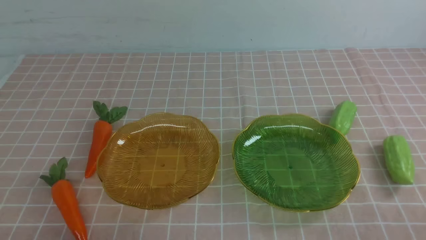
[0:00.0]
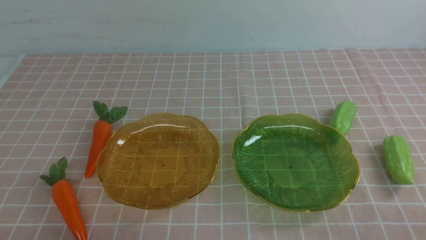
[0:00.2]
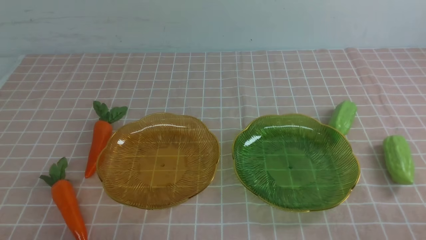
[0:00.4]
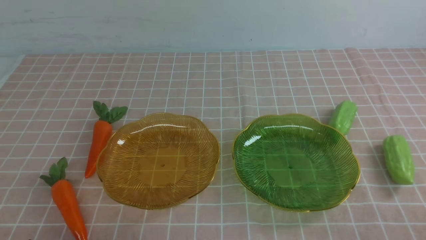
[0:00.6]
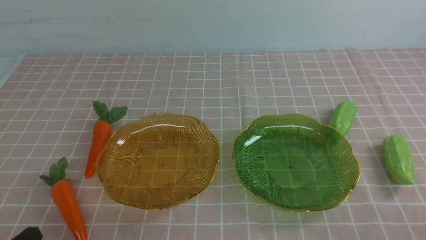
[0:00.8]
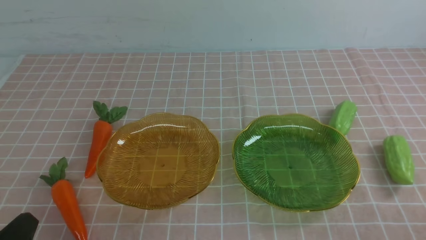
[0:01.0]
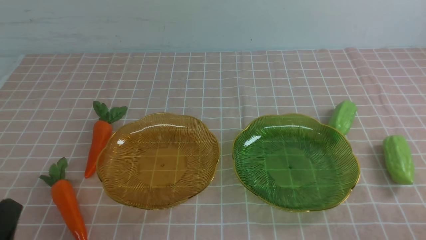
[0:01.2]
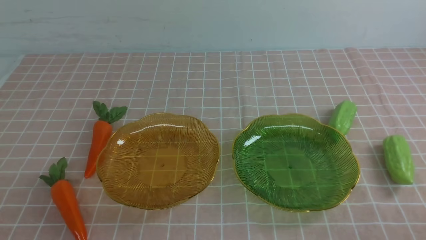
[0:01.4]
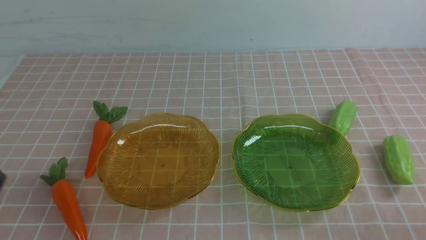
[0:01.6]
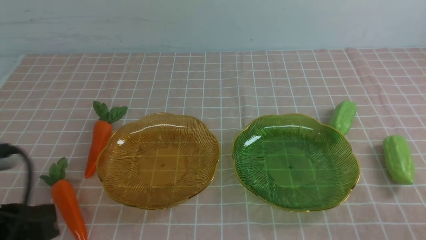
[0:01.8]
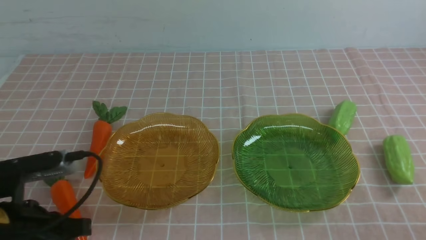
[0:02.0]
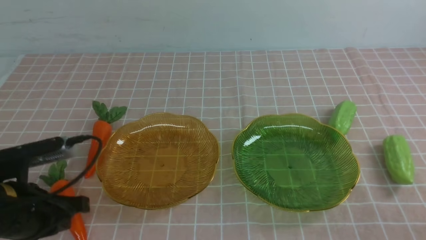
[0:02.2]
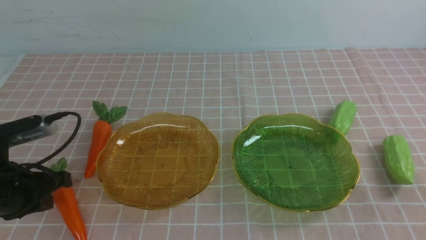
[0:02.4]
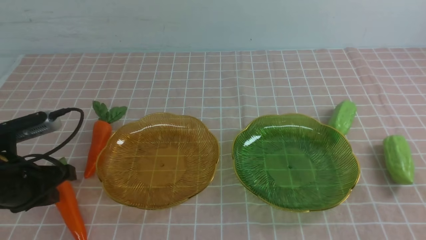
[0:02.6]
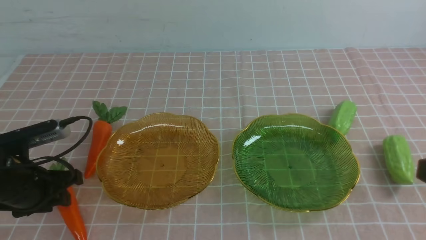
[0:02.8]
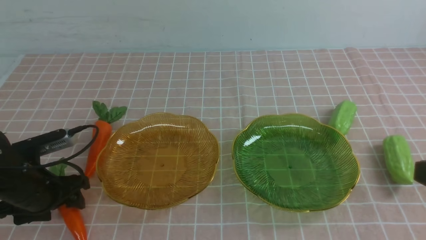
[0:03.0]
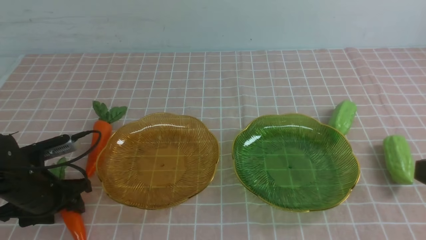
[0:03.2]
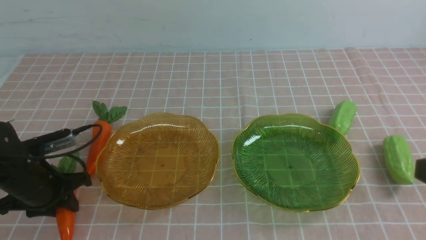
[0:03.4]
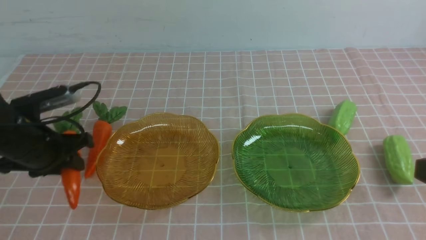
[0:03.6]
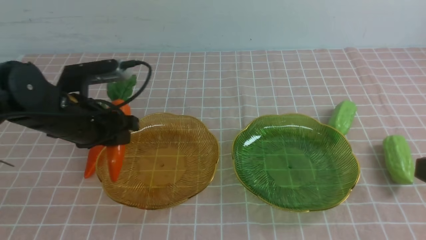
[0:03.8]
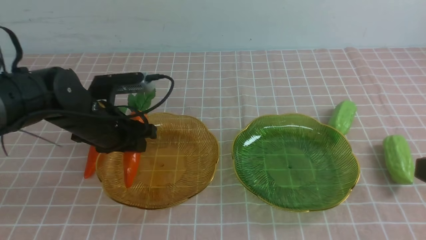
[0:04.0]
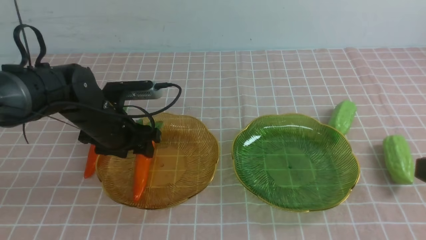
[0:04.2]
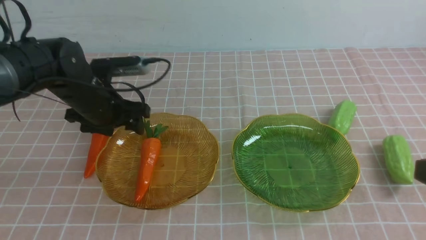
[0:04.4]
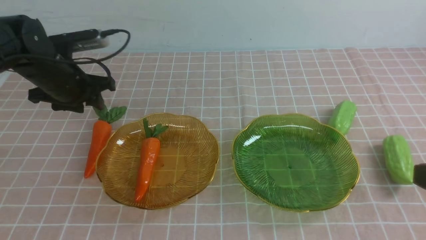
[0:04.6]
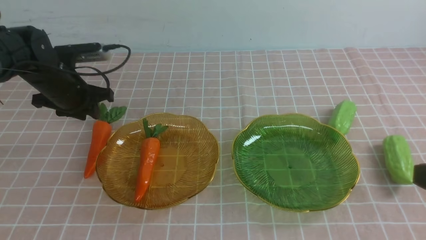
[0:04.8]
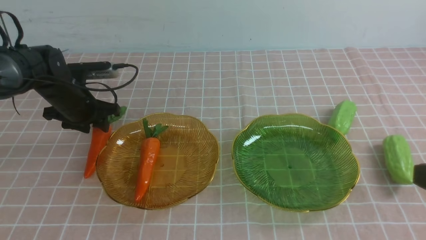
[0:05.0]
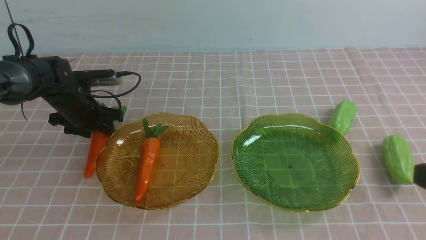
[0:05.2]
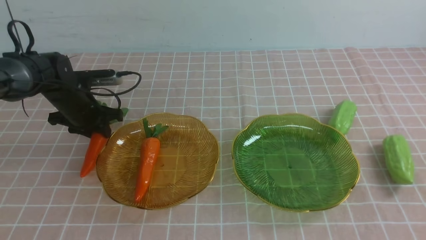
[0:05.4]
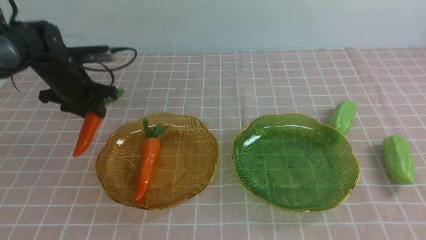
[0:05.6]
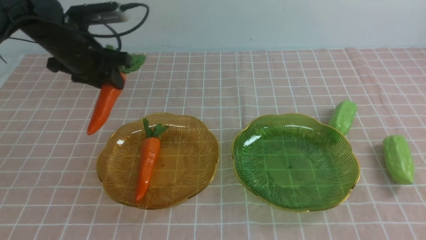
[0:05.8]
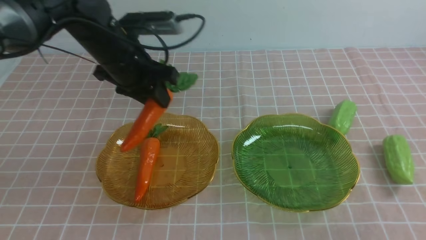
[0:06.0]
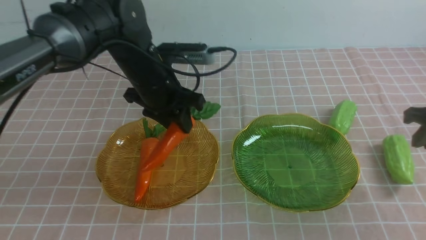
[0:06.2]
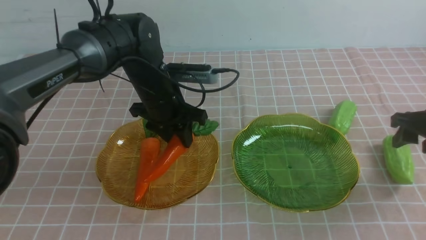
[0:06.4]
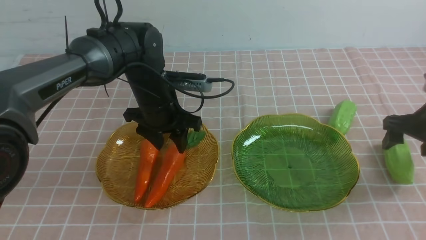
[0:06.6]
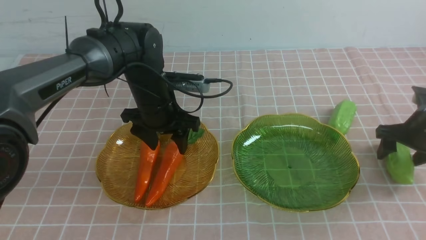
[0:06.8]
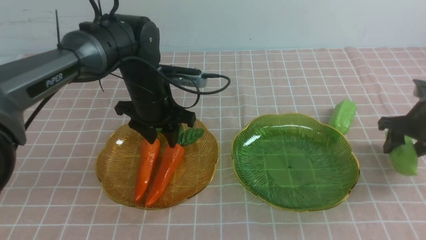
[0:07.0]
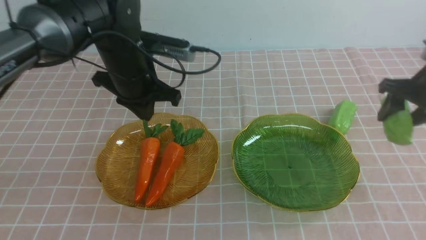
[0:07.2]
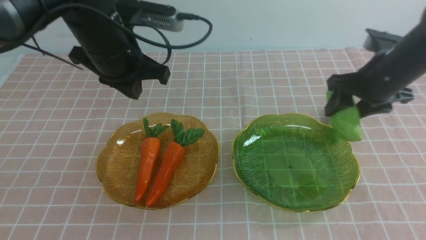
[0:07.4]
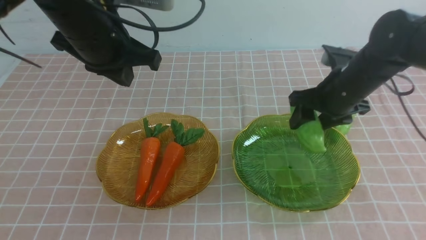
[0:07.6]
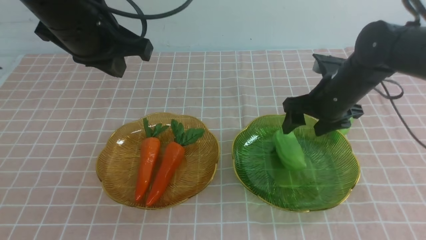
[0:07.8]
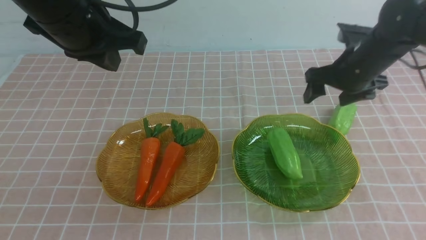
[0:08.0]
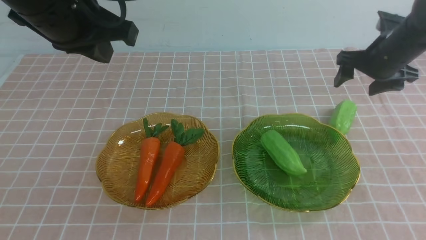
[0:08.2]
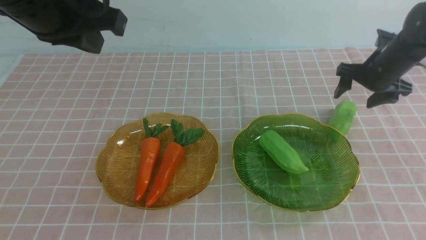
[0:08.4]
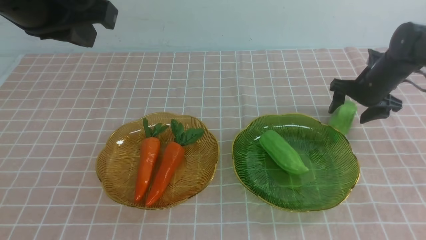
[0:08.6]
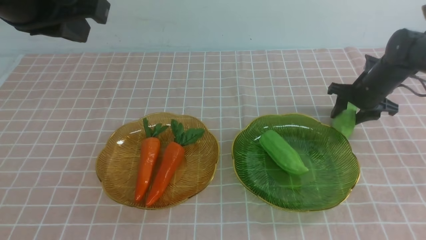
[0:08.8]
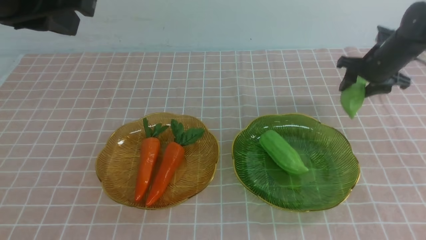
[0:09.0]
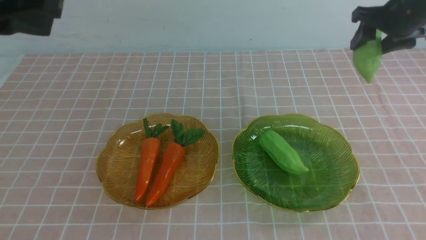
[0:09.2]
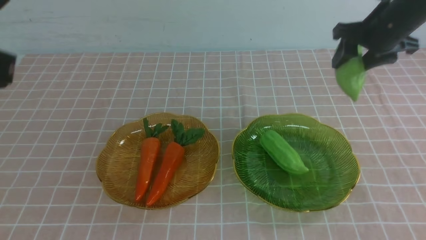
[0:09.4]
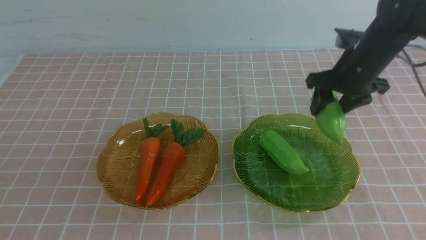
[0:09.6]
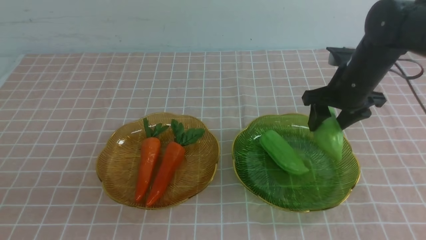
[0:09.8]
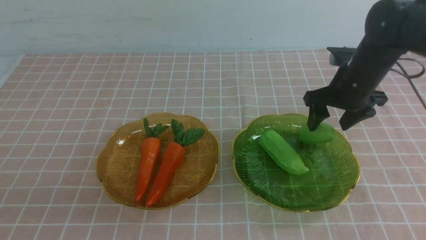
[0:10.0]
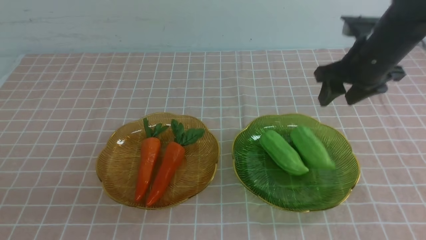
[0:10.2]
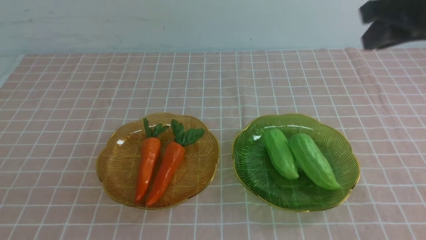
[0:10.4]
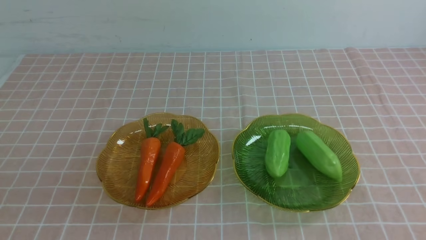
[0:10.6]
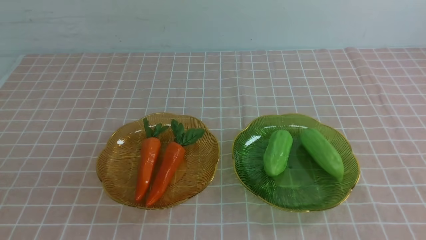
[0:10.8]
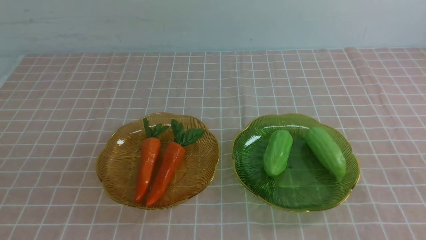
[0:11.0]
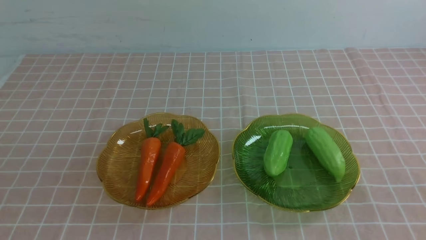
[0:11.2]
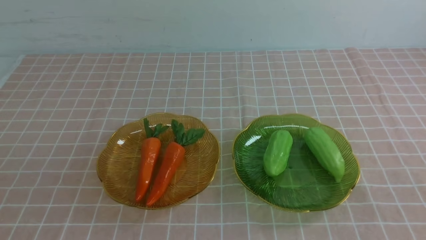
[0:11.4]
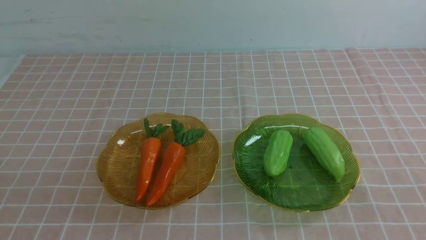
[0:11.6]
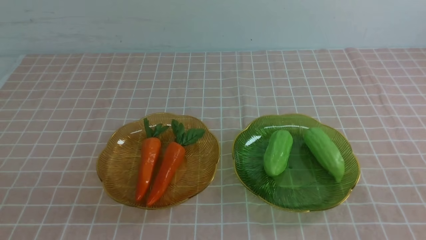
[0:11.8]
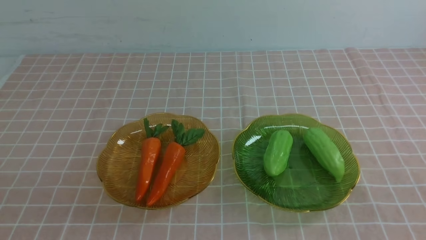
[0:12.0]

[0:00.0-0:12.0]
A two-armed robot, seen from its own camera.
Step, 0:00.0 to 0:06.6: use the left arm to grab a carrot and put it into the left plate.
Step, 0:06.8 to 0:10.2: use the right arm to grab a chayote and put it into the right plate.
0:01.6 to 0:03.0: The left gripper is displaced forward by approximately 15 cm, and opens.
0:03.0 to 0:04.4: The left gripper shifts roughly 15 cm forward.
0:04.4 to 0:06.0: The right gripper travels forward and downward by about 30 cm, and opens. Meanwhile the left gripper goes approximately 15 cm to the right.
0:06.0 to 0:07.6: The left gripper travels upward and backward by some 20 cm, and closes up; the right gripper moves to the left, upward and forward, some 15 cm.
0:07.6 to 0:09.0: The right gripper goes roughly 10 cm upward and to the right. Meanwhile the left gripper shifts some 10 cm backward and upward.
0:09.0 to 0:10.4: The right gripper travels backward and upward by about 20 cm, and closes. The left gripper is displaced backward and downward by approximately 15 cm.
0:10.4 to 0:12.0: The right gripper travels backward by some 30 cm. The left gripper is displaced downward by approximately 5 cm.

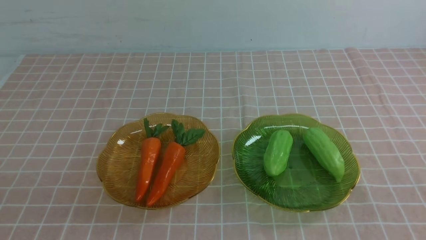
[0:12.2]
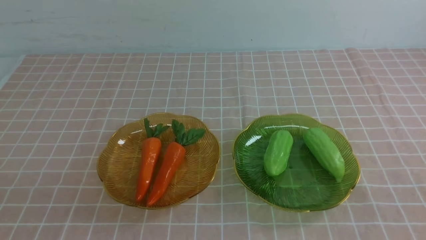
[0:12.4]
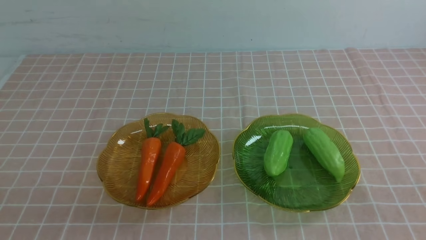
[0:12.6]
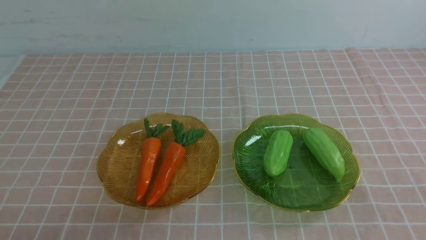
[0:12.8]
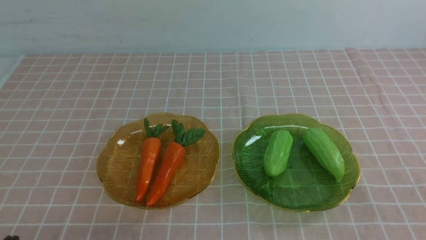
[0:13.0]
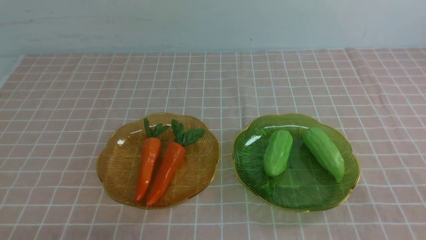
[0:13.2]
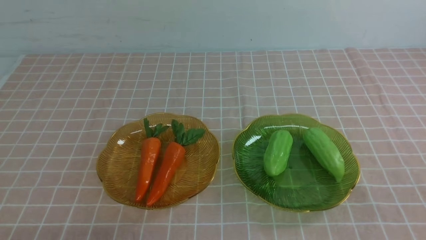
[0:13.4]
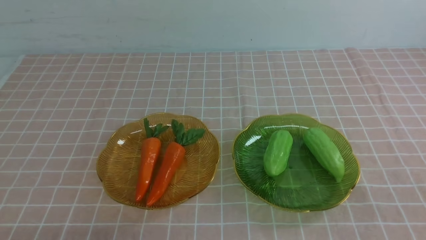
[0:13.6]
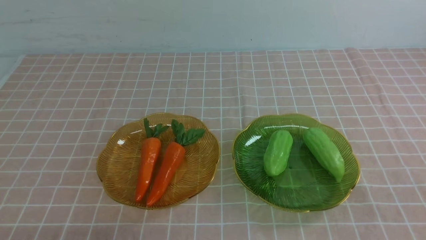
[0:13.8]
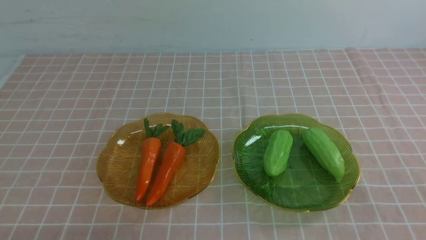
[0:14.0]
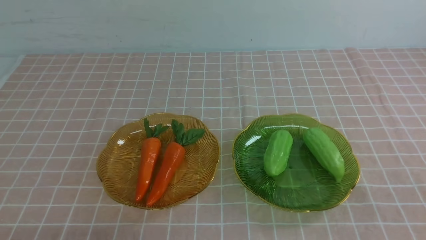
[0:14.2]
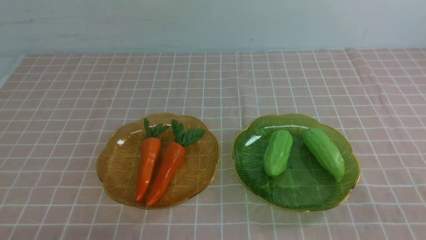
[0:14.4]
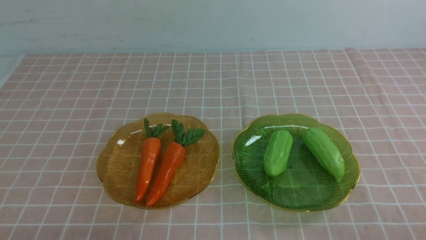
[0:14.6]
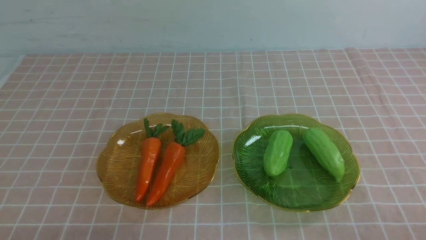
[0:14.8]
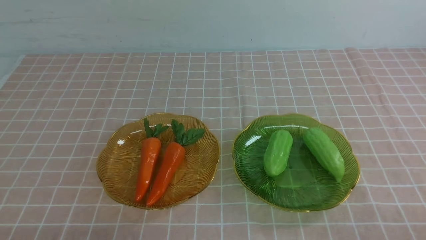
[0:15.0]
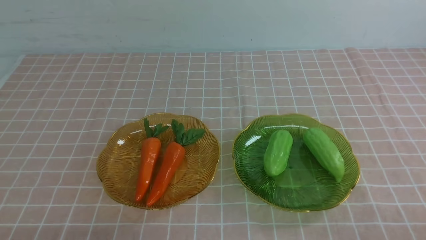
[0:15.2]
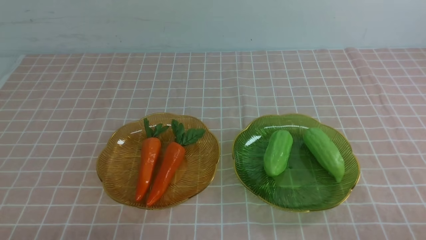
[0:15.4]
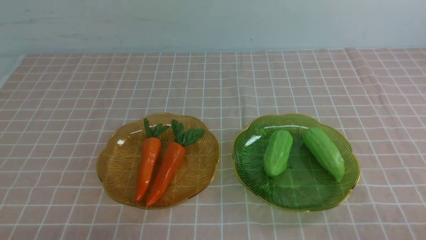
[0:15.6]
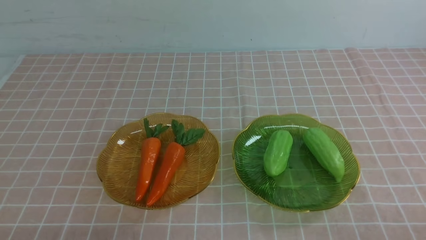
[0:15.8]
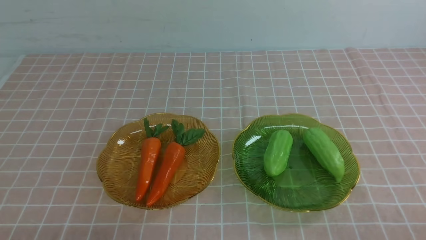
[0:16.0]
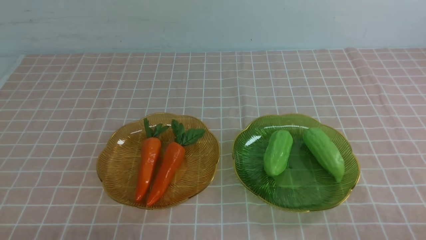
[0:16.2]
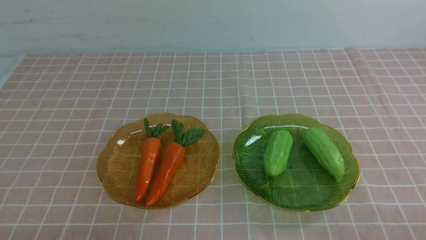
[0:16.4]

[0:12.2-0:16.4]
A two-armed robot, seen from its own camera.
0:15.0 to 0:16.4: Both grippers stay put.
